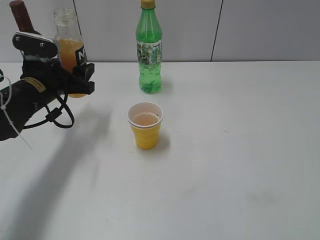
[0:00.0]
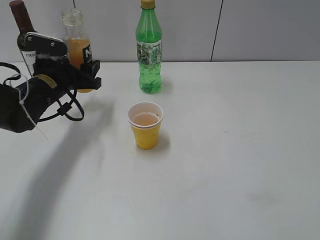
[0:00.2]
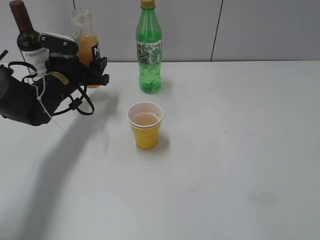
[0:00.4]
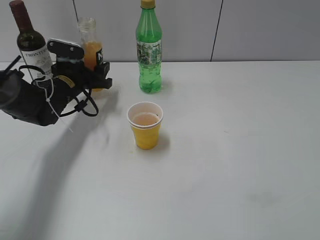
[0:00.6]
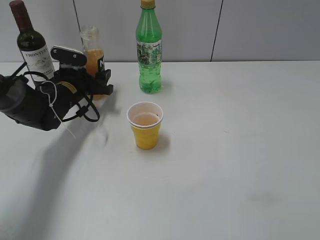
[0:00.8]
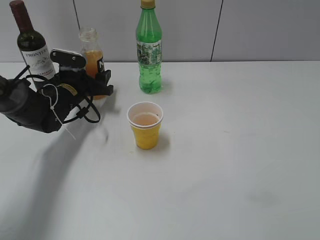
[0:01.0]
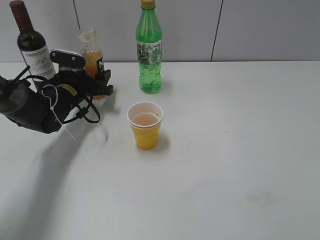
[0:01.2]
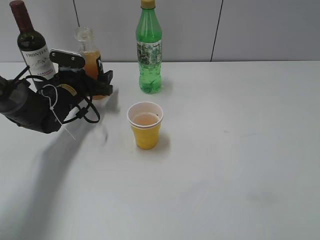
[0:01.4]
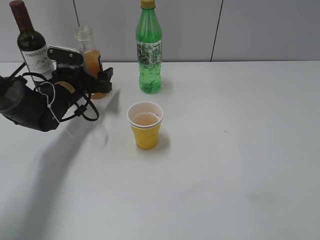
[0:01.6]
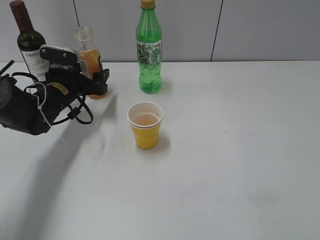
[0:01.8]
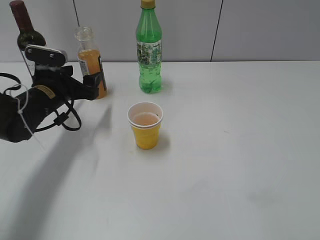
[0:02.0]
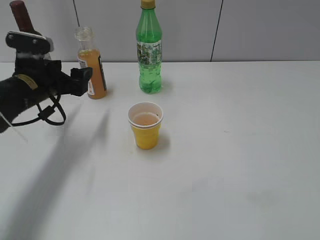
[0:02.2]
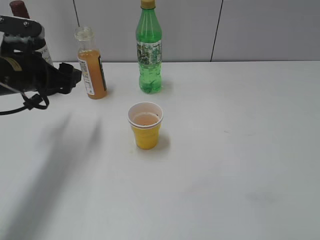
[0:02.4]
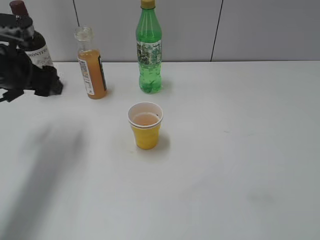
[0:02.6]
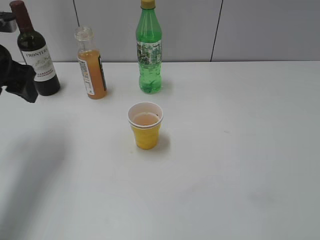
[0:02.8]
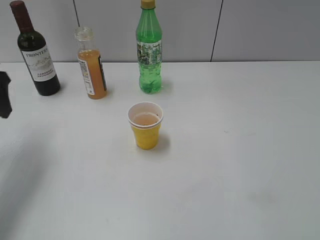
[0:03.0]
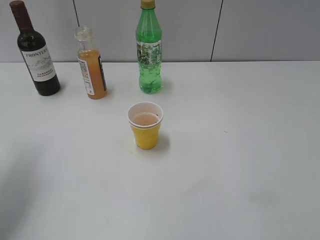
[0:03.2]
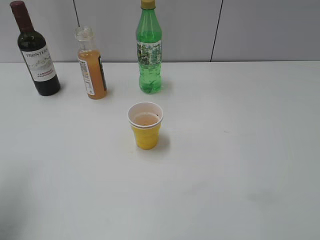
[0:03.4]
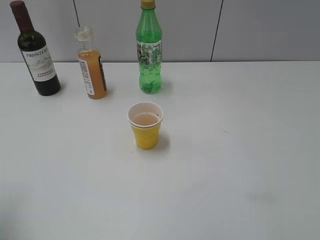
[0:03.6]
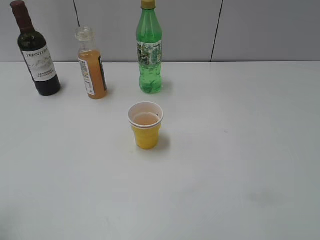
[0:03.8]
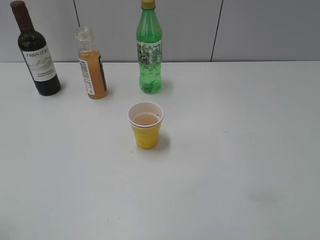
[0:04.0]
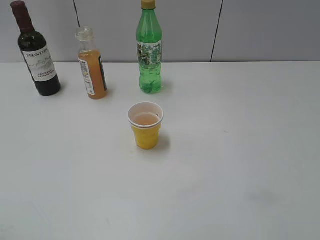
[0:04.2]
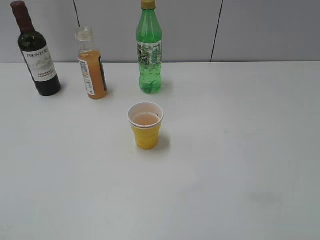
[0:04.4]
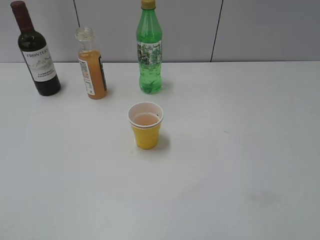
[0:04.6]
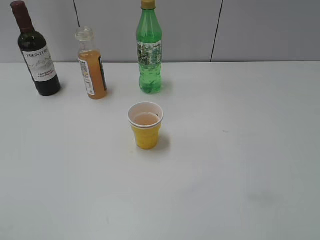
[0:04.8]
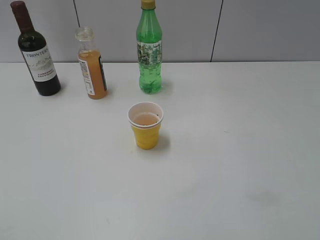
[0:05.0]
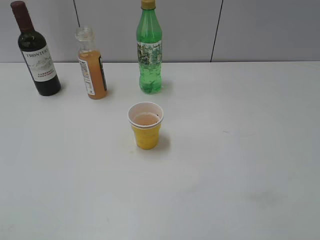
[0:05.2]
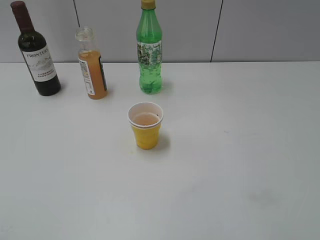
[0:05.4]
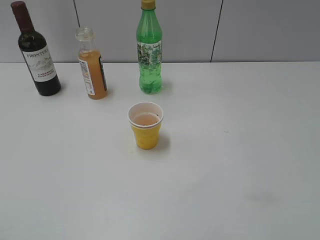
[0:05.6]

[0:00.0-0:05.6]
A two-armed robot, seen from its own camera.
Step, 0.0 to 1.6 s: Place the orange juice bottle on the table with left gripper.
0.0 to 1.4 s: The left gripper travels forward and downward by about 10 cm.
1.4 to 2.8 s: The left gripper goes approximately 20 cm upward and backward.
2.8 to 4.2 s: The left gripper is displaced backward by some 25 cm.

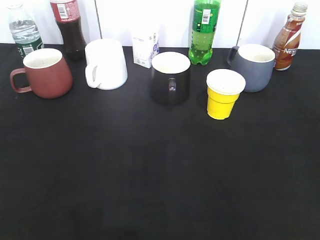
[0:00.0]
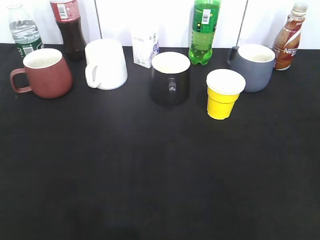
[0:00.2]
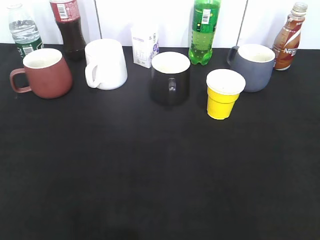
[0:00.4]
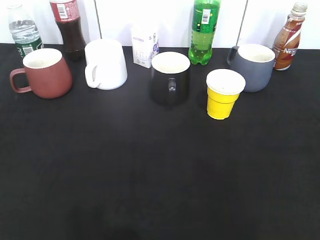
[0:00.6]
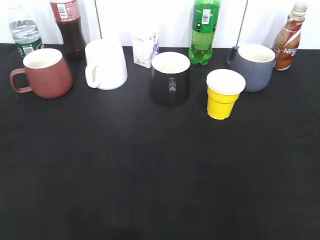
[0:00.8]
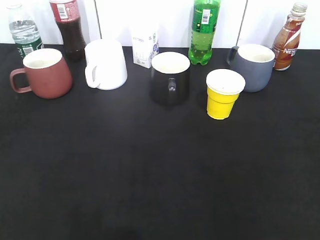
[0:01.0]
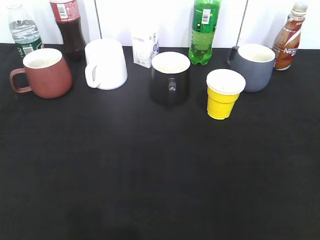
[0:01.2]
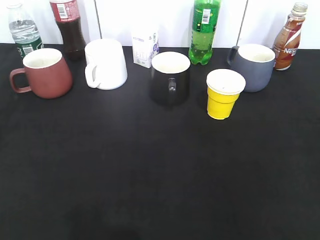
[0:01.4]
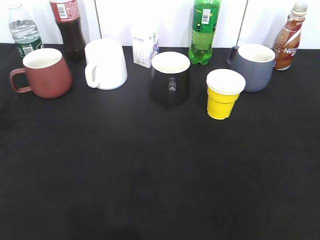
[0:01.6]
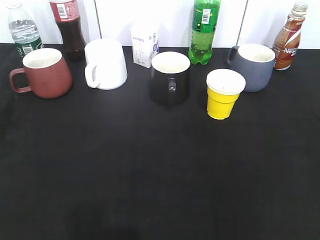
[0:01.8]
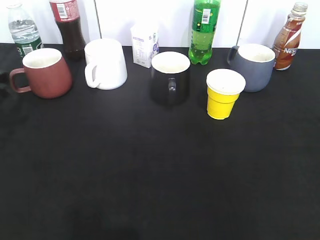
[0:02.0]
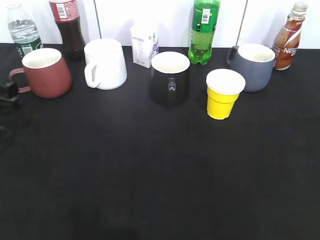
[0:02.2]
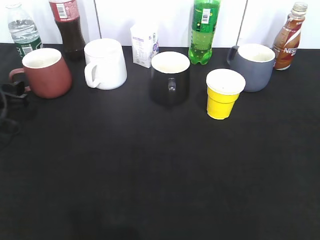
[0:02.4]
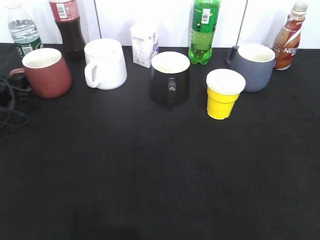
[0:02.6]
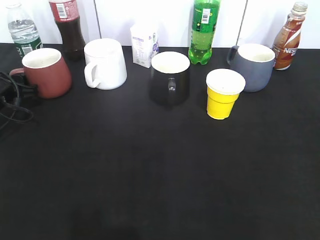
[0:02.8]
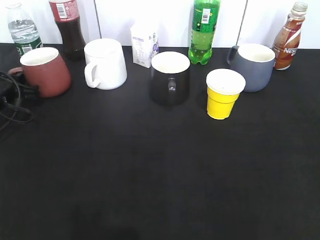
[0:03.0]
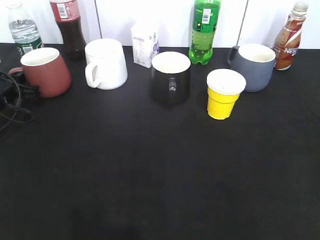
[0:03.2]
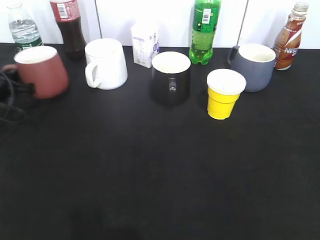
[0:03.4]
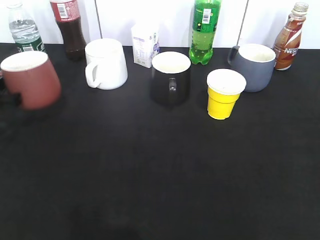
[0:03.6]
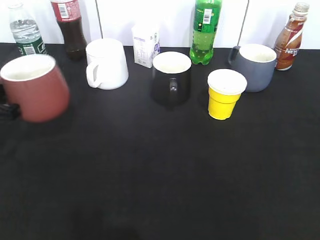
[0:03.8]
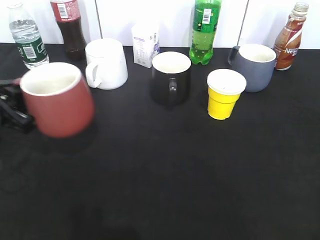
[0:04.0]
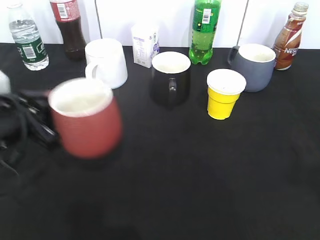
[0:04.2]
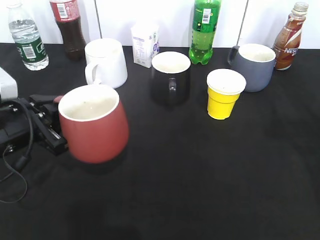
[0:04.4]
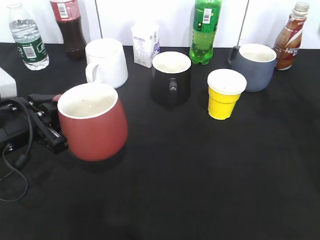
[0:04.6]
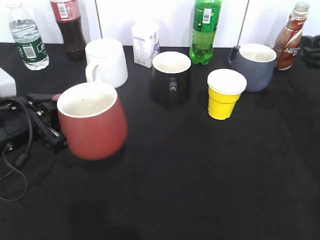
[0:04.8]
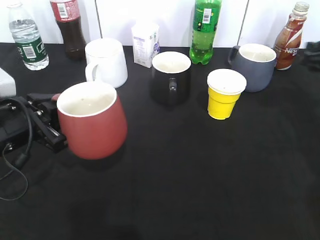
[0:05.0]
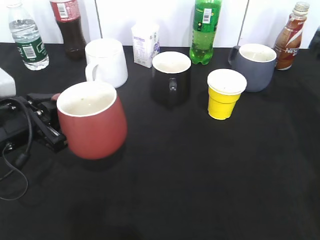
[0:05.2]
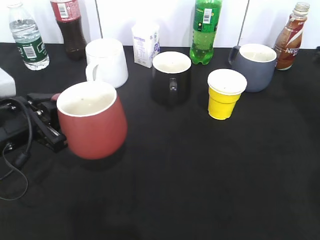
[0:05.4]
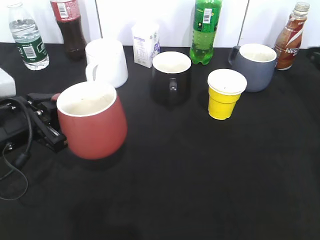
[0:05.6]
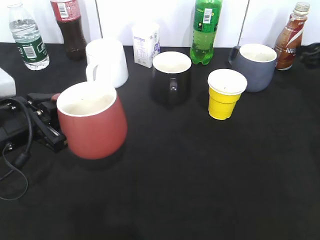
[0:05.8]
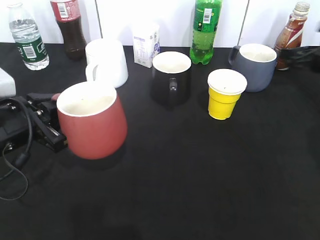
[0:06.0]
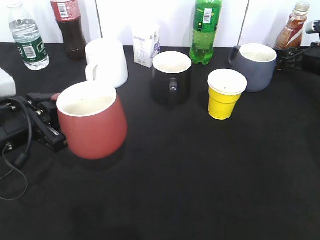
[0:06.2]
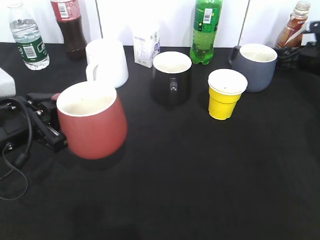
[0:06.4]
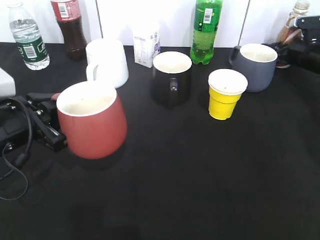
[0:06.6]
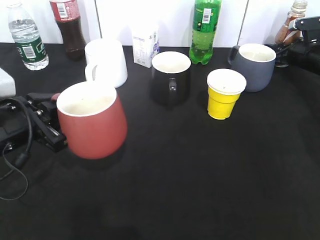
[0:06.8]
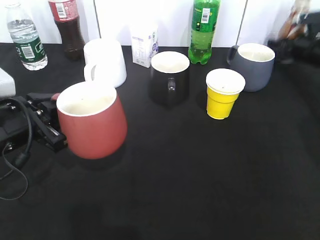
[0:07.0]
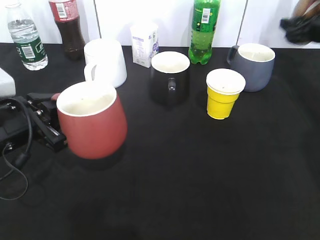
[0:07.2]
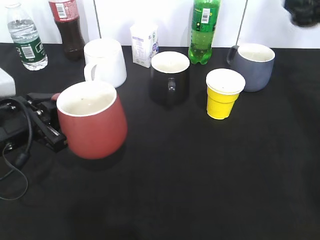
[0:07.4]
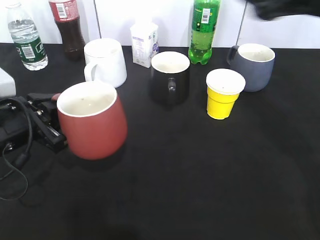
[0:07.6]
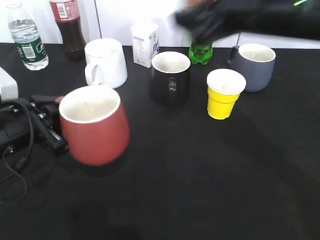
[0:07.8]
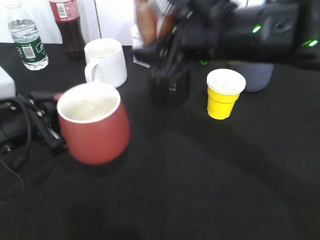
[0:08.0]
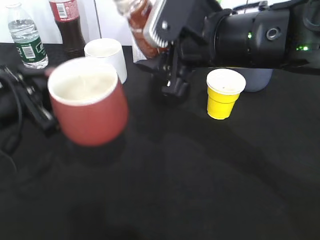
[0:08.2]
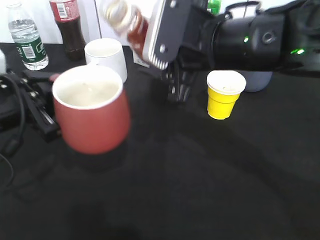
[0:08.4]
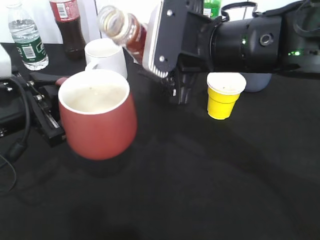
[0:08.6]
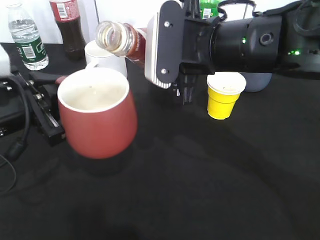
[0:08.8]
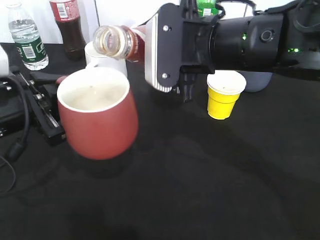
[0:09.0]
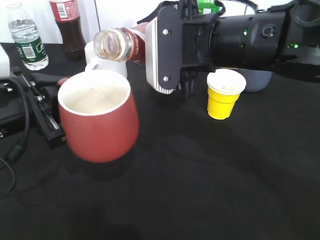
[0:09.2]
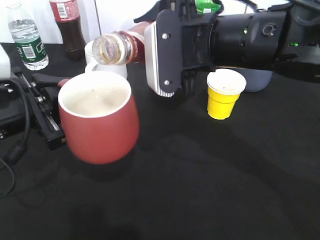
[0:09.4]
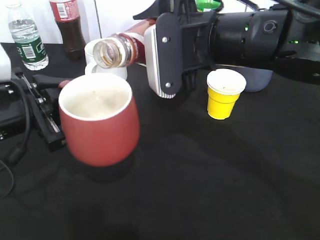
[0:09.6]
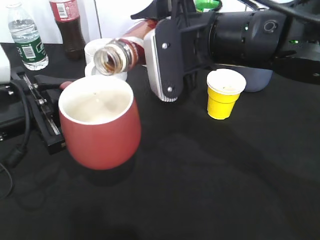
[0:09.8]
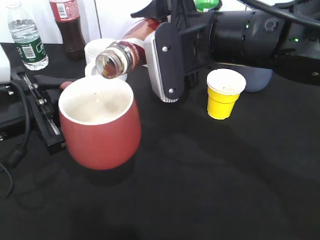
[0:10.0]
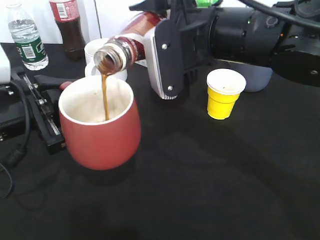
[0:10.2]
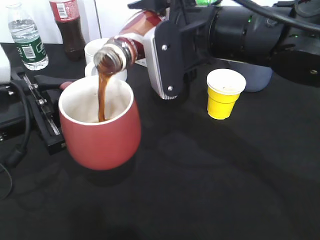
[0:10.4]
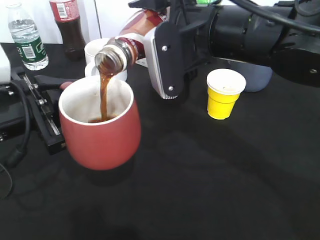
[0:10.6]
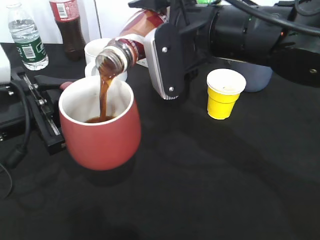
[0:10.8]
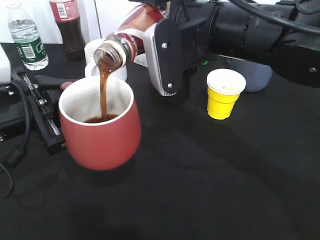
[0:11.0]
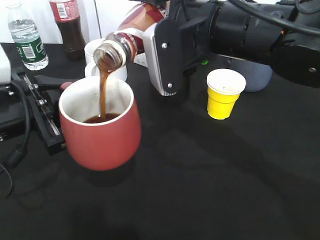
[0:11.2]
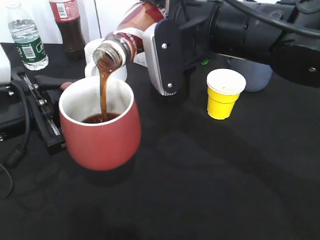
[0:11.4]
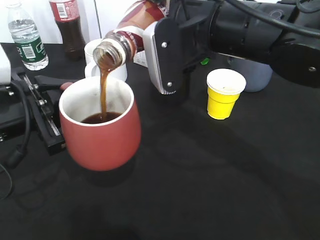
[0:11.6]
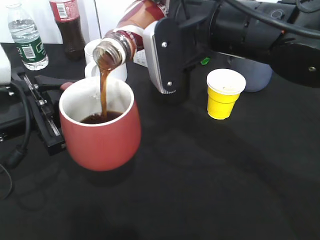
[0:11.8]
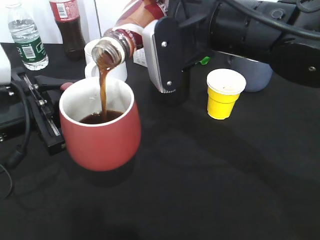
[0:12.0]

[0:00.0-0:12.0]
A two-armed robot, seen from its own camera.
Step, 2.0 to 3.2 s: Grasp the red cup with left gripper.
Step, 3.4 to 4.4 s: Lift the red cup with left gripper.
Step, 4.6 to 6.8 s: Grasp the bottle with coffee with right gripper.
1.6 to 3.0 s: The left gripper travels downward and forward by about 20 cm, and closes up.
3.0 to 4.4 s: The left gripper moves backward and to the right, roughly 15 cm. The right gripper shifts roughly 20 cm forward.
4.4 to 6.0 s: The right gripper is displaced forward and downward by approximately 30 cm, and closes, then opens again.
6.0 to 7.6 s: The right gripper travels upward, to the left and backward by roughly 25 cm, and closes.
7.6 to 9.0 s: The right gripper heads to the left and backward, covering about 15 cm. Meanwhile the left gripper shifts by some 5 cm.
10.4 to 12.0 s: The grippers make only small movements.

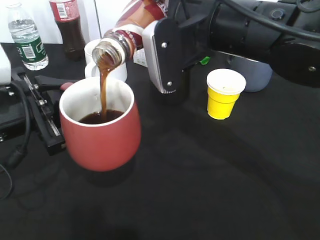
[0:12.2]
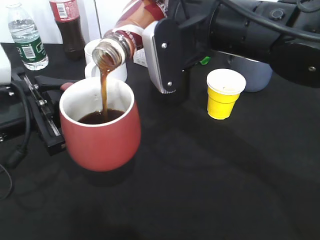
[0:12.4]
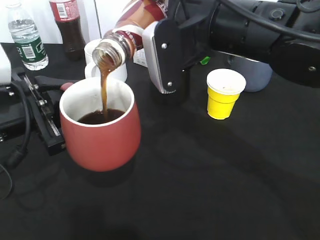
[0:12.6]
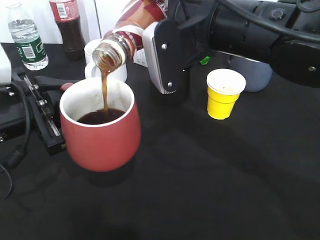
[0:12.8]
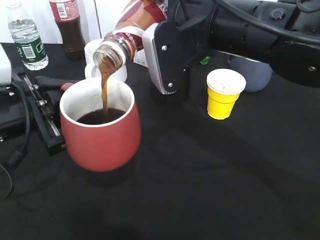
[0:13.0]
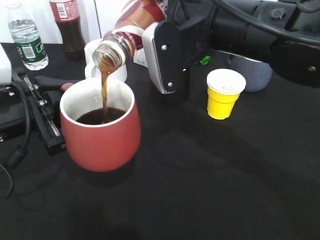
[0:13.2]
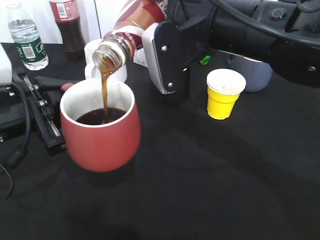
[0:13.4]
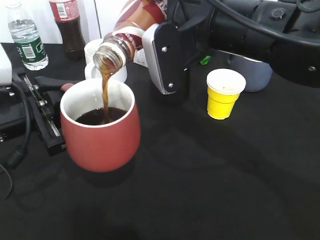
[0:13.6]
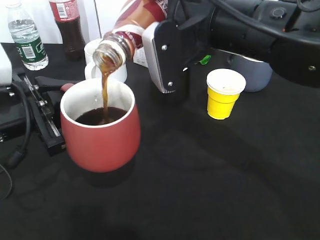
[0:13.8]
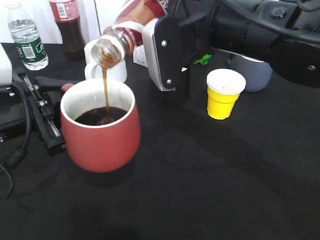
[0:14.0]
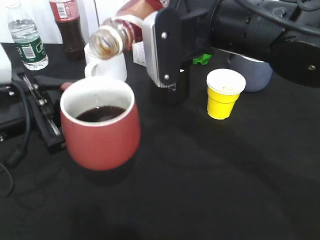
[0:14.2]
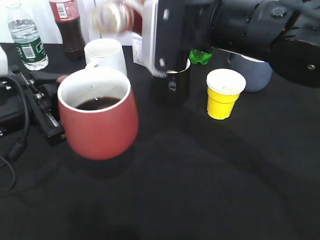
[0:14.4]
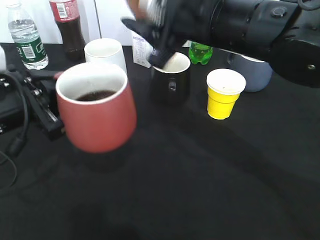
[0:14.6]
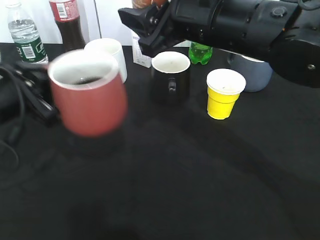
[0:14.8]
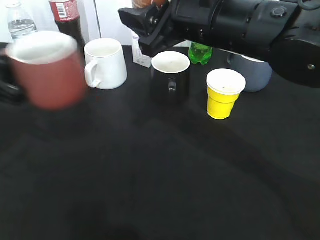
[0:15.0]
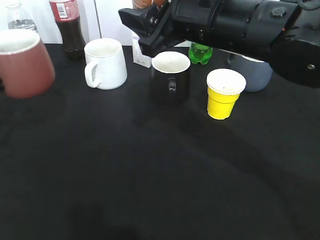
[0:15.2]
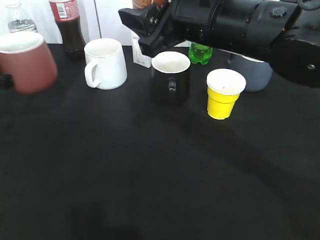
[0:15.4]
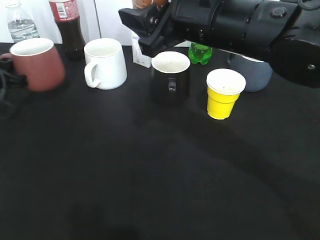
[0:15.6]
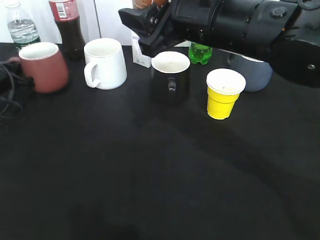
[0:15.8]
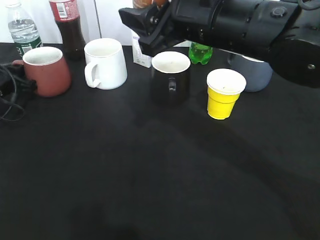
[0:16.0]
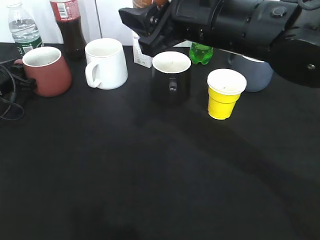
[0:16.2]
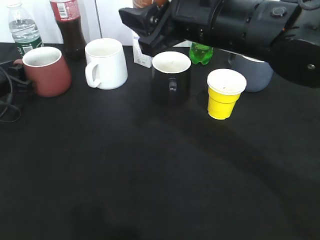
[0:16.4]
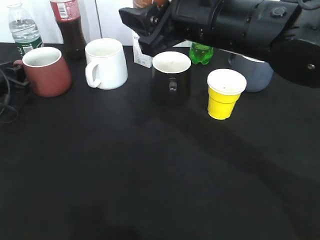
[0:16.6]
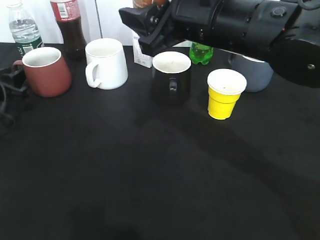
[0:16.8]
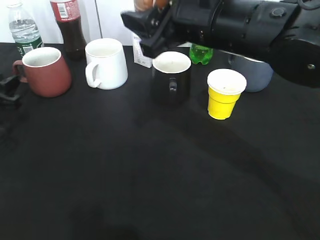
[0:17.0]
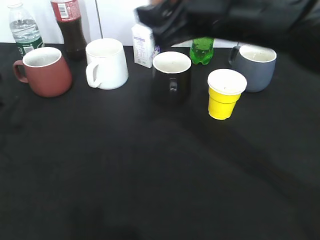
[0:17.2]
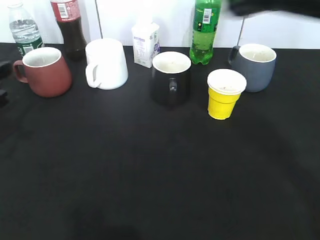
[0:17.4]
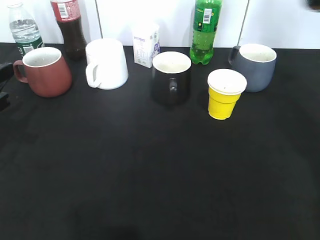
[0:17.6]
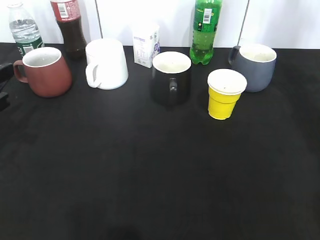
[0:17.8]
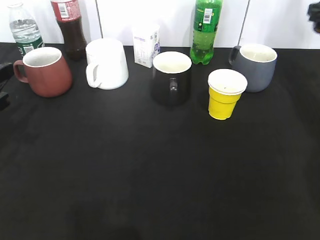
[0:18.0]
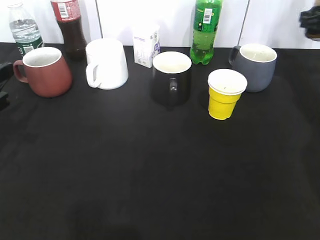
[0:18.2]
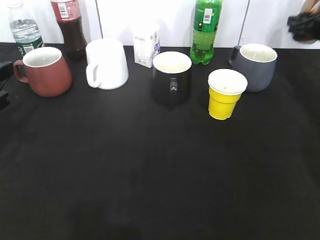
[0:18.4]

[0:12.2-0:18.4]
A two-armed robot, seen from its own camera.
Step, 12.2 to 14.2 s: Pour the coffee from bottle to cup with right gripper.
Step, 14.6 to 16.4 s: Place the red cup on the table with left gripper.
12.2 to 13.8 s: Both grippers stay about where they are.
13.8 to 15.4 s: The left gripper goes about 15 cm to the left and forward.
15.4 to 16.8 s: The left gripper heads downward, covering about 5 cm, and opens up.
16.8 to 18.4 s: The left gripper moves backward and upward, roughly 15 cm. Meanwhile the right gripper is displaced to the right and forward by some 35 cm.
